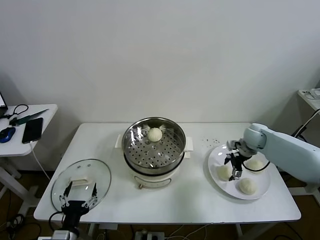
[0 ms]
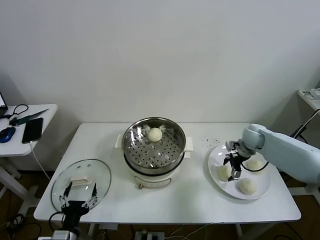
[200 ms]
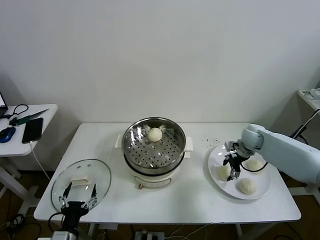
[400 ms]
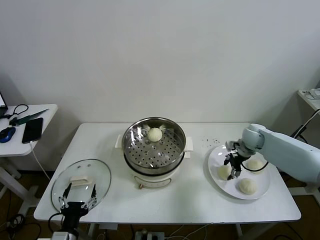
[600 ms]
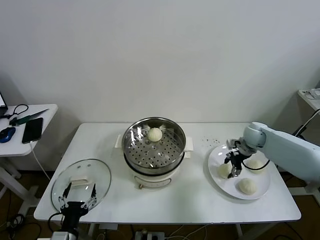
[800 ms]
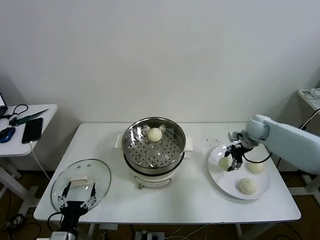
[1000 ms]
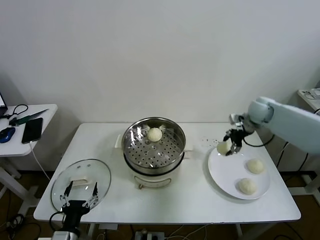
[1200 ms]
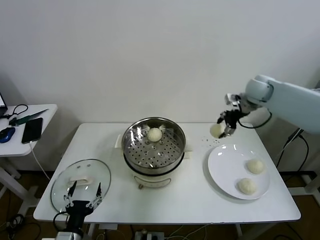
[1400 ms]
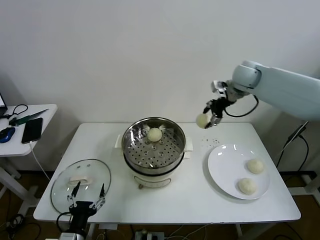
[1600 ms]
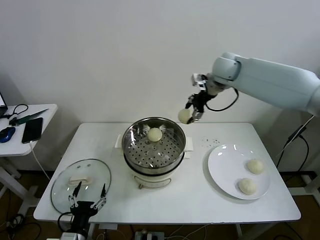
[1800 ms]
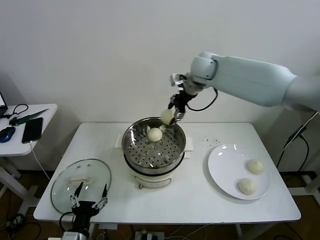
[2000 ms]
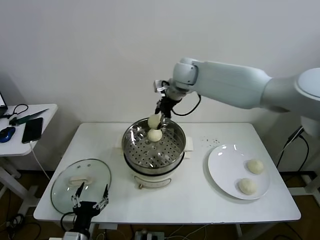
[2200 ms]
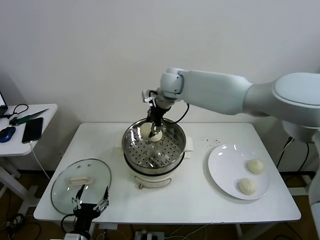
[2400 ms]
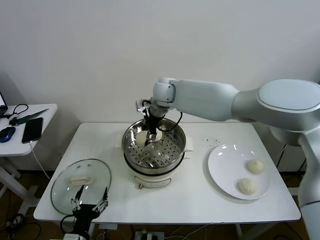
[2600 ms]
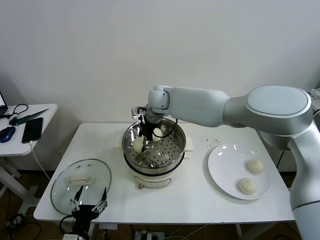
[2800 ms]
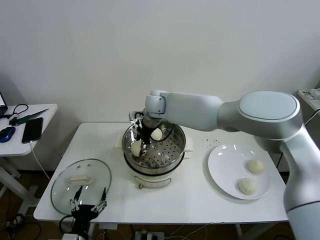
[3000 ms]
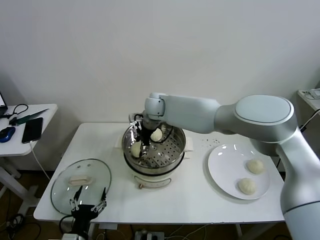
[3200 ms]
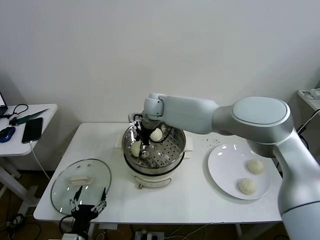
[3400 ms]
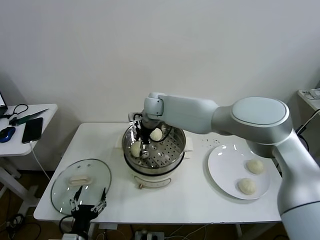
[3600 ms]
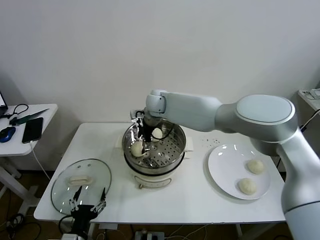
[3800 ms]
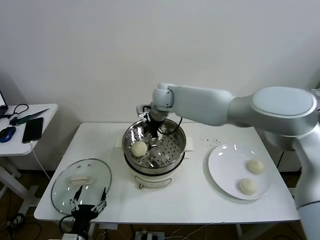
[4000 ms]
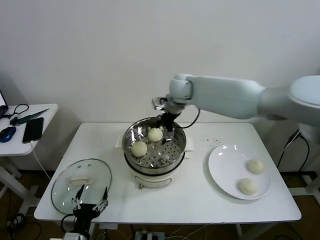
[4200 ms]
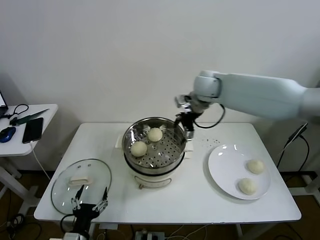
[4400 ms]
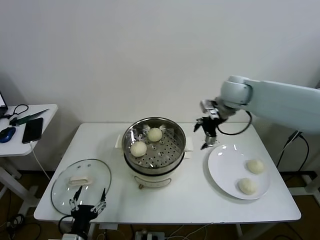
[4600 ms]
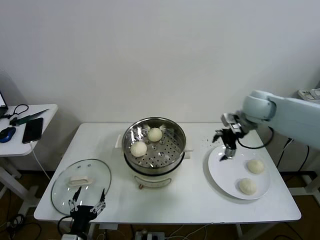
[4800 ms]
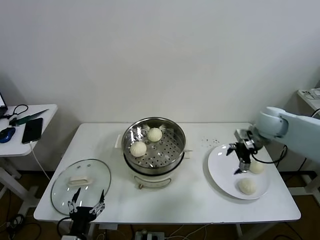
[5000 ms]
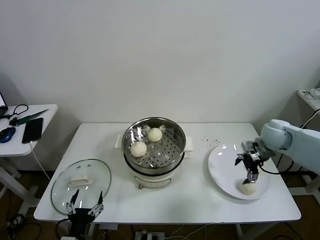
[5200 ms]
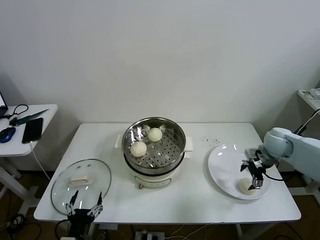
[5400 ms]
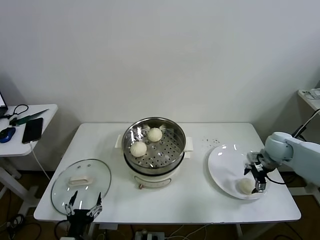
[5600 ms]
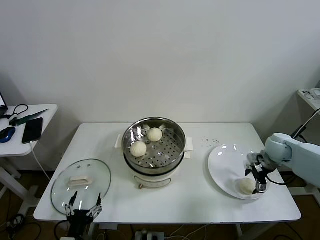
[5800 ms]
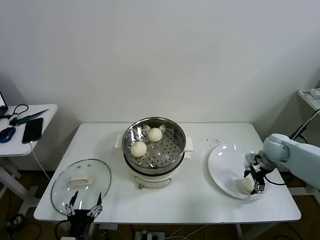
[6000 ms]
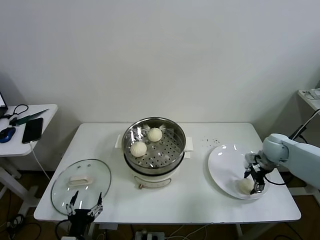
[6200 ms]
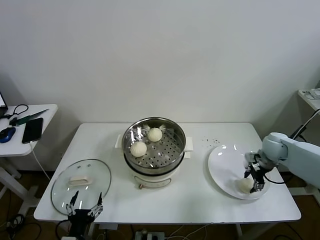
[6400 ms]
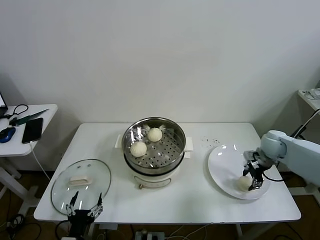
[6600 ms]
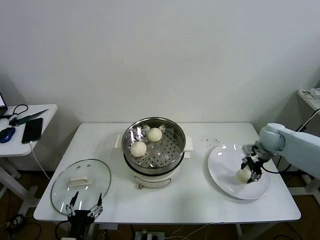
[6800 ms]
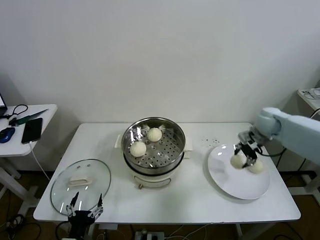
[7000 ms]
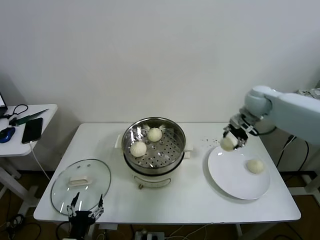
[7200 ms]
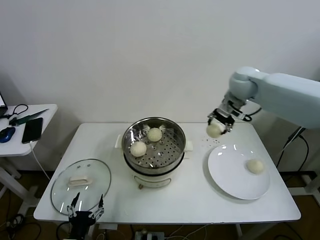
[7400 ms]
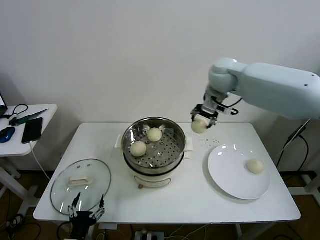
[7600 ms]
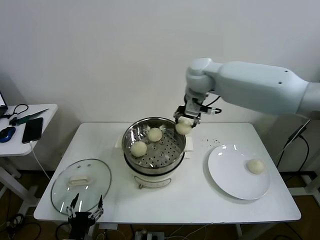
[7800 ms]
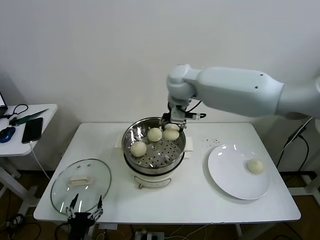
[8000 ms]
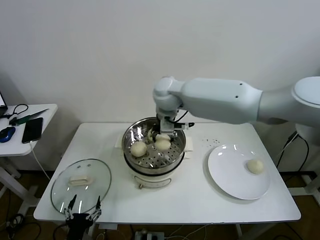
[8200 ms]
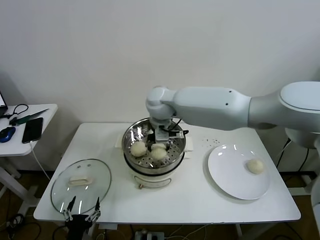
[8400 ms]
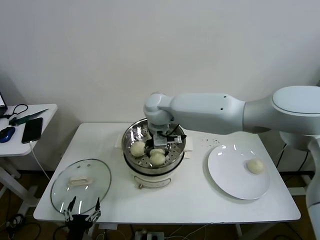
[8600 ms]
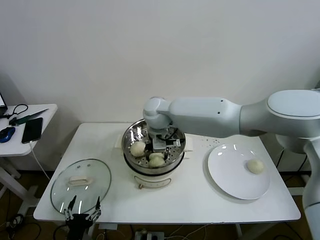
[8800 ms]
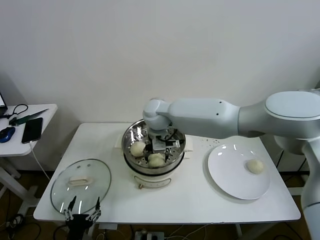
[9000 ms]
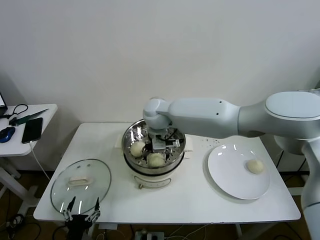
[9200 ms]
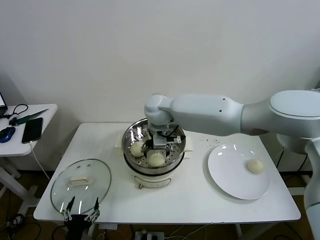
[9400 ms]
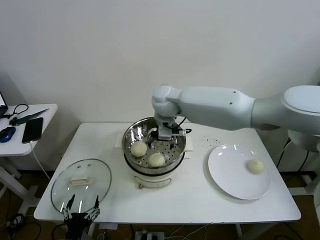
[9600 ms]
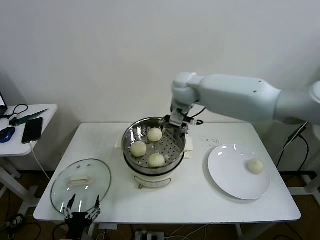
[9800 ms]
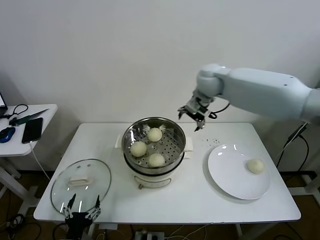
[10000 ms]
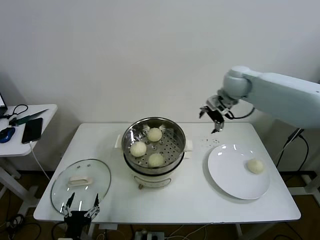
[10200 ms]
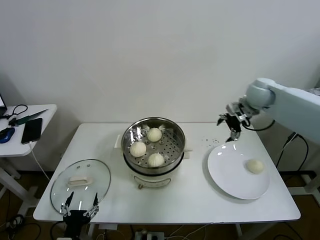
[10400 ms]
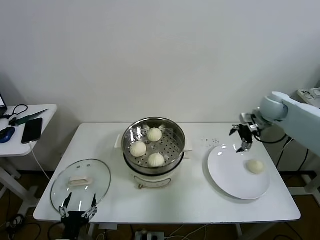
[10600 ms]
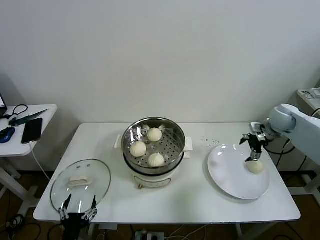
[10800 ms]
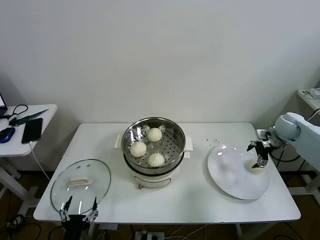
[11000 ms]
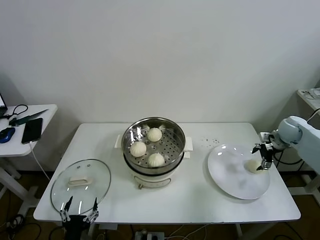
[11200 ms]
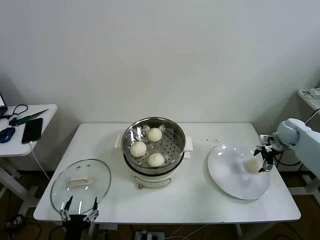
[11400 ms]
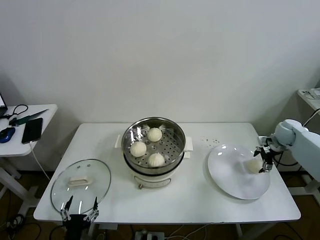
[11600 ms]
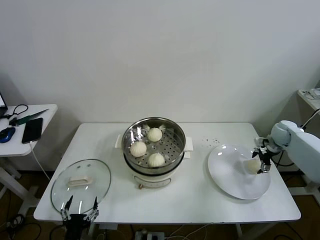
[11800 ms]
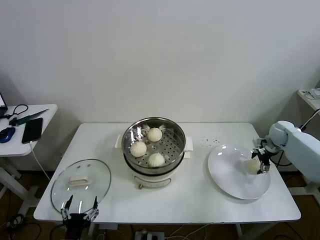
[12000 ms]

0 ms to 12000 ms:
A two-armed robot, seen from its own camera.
Task of the whole recording: take steamed baozi put them in steamer then cover it.
Step, 800 ms to 3800 ms: Place the baozi on the steamer with right gripper.
Step, 4000 ms to 6400 ms: Grasp the baozi in the plate with right gripper.
Step, 6600 ms to 9200 ms: Place the baozi on the steamer with right gripper.
0 ms to 1600 ms: The right gripper heads upward and to the left, covering approximately 25 cm, and closes.
1600 ms to 3000 ms: The right gripper travels to the left and downward by roughly 30 cm.
3000 ms to 4400 ms: The right gripper heads to the right and upward, covering about 20 cm, and opens.
4400 ms to 6000 ms: The right gripper shifts roughly 30 cm to the right and downward.
6000 ms to 7600 ms: The right gripper travels upward and to the left by about 35 cm, and closes up.
7600 ms to 9000 ms: The right gripper heads to the left and downward, covering some 20 cm, and opens up.
9000 ms to 10400 ms: The right gripper shifts about 35 cm to the right, and opens.
10400 ms to 12000 ms: The right gripper moves downward and to the right, approximately 25 cm.

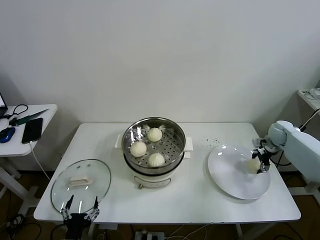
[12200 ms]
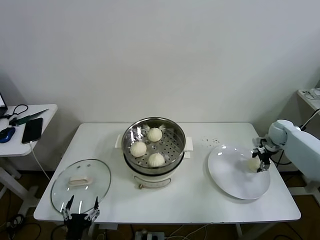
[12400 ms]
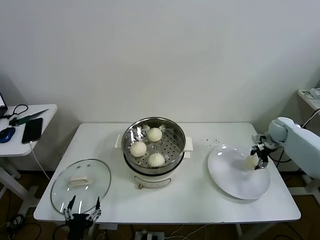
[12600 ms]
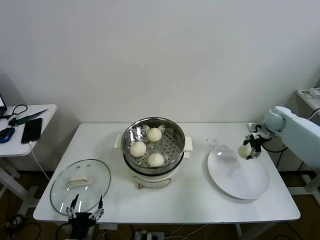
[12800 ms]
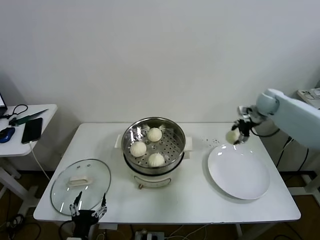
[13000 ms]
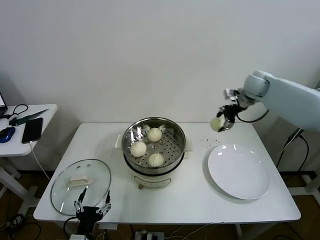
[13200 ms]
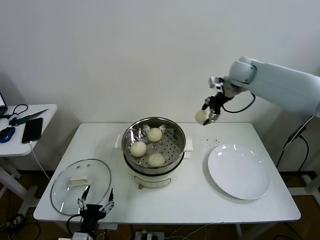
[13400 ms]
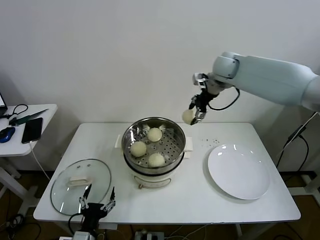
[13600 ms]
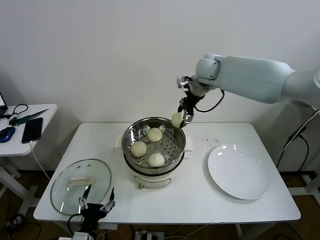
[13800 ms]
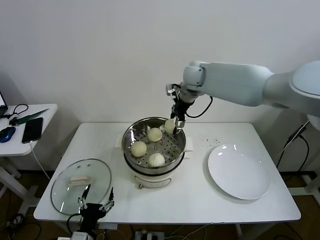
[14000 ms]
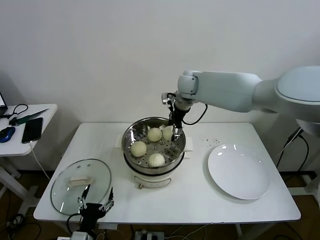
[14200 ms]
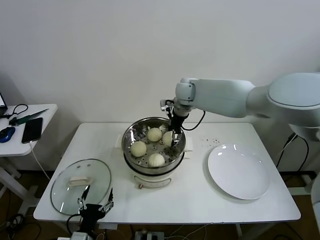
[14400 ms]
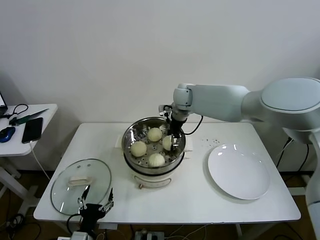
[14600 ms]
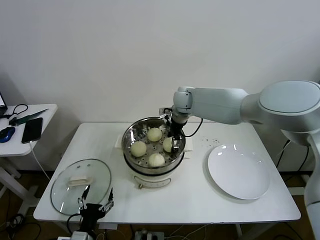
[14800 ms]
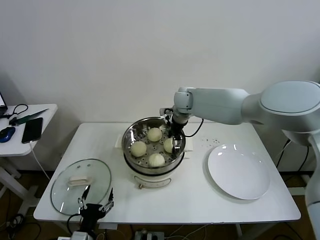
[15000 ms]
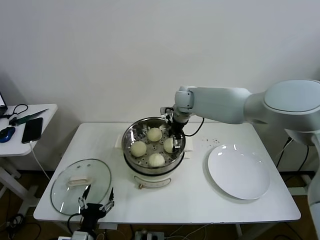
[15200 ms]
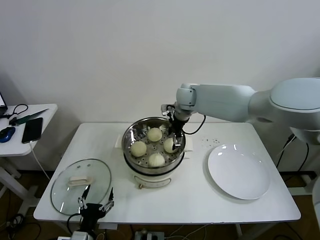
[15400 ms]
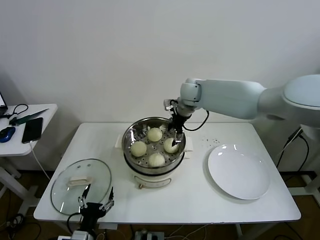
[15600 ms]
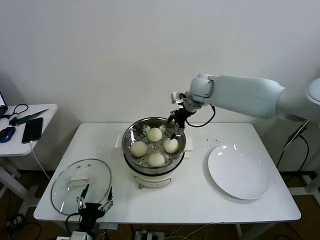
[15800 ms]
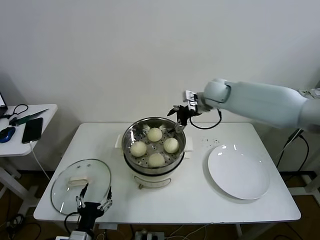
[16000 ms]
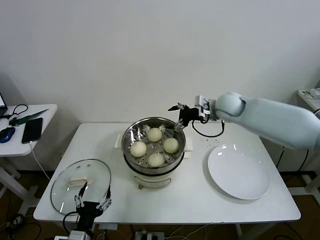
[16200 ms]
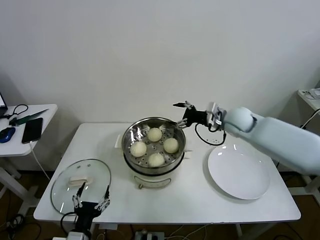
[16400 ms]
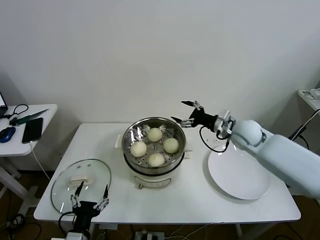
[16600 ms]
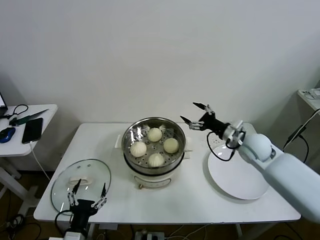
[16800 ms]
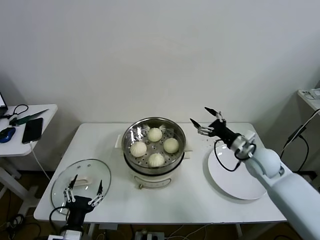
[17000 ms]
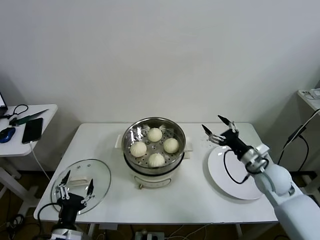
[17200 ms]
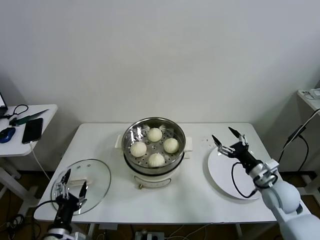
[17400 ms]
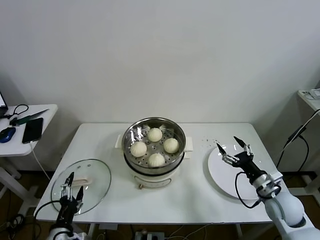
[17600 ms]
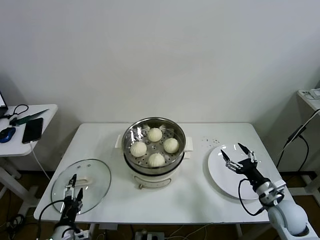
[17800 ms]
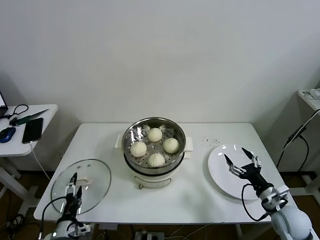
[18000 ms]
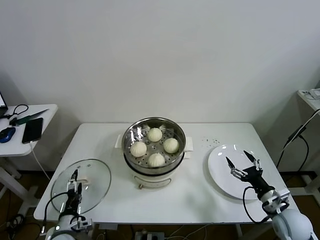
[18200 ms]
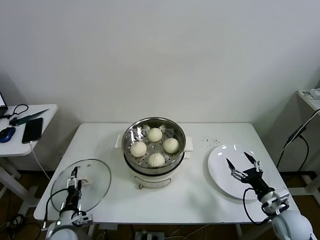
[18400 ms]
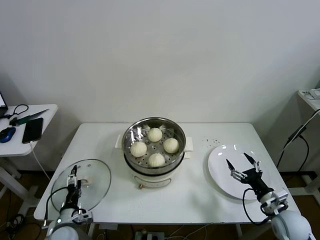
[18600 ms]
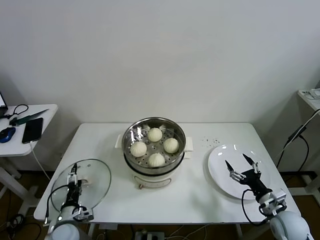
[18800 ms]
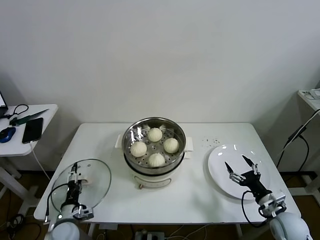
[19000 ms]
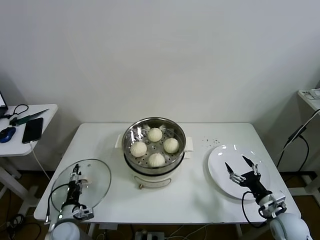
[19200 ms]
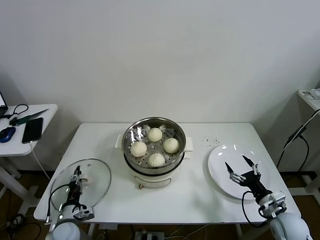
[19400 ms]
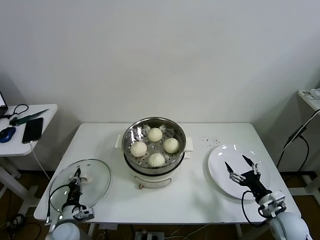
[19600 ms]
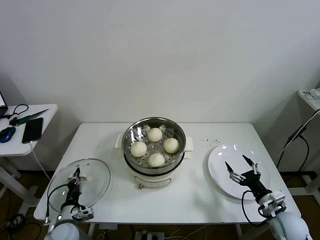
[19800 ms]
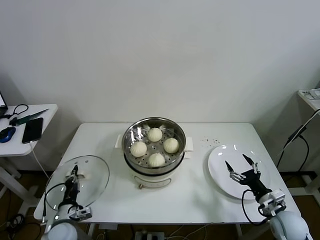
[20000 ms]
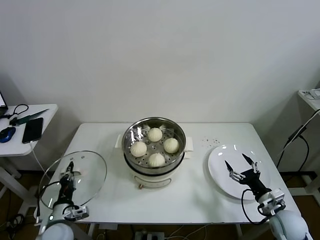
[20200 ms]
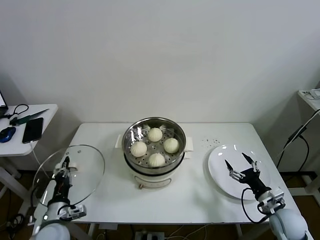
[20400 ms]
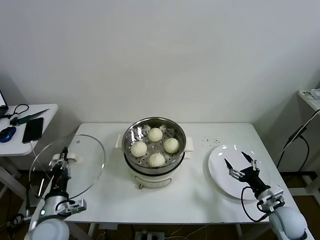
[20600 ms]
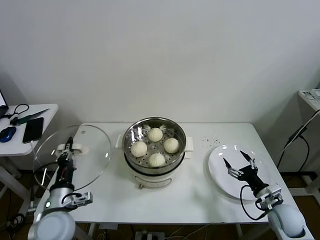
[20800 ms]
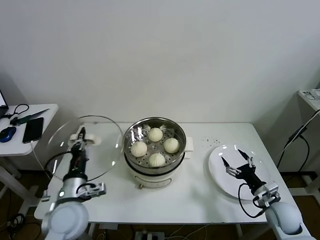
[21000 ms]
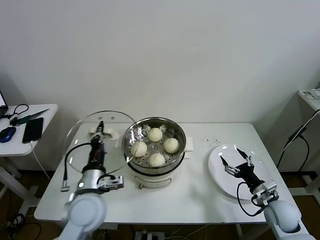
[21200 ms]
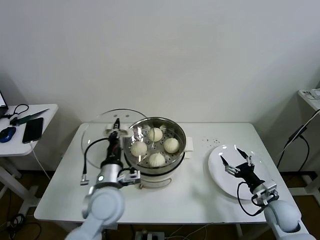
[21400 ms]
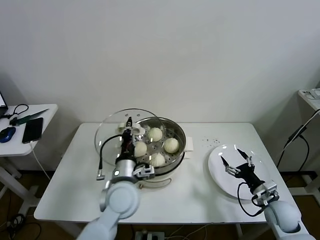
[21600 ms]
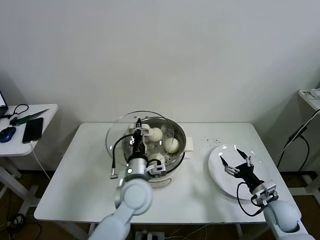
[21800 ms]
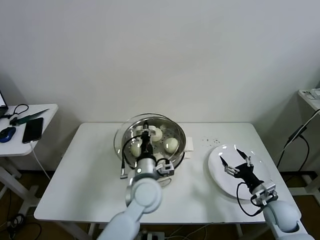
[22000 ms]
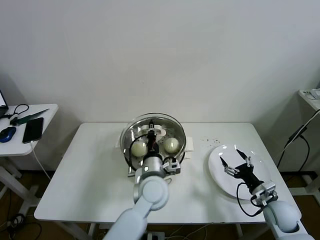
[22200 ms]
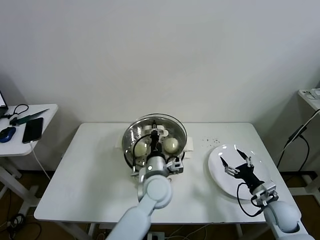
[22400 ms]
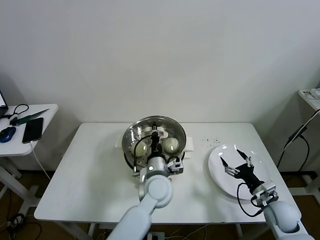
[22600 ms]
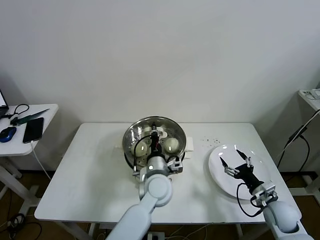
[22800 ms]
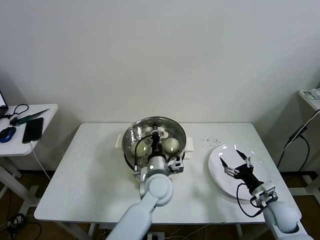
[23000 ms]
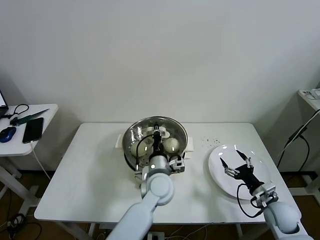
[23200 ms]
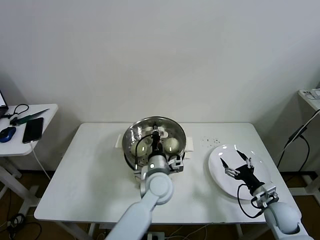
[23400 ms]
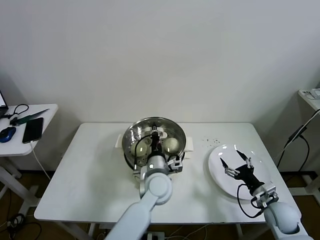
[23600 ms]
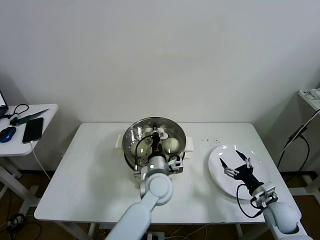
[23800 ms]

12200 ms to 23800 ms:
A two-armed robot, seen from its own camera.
Task of the whole recording: take steamed baozi put them in steamer then cover it.
Step, 12600 ms to 15200 ms: Place the baozi on the steamer with right gripper.
Step, 15600 ms to 19600 ms: Grasp the pot lid with left gripper.
12200 ms to 13600 ms: The right gripper goes some 35 cm to the left and upward.
13600 ms to 15000 ms: The right gripper heads downward and to the left, covering about 15 cm.
15000 ms to 16600 ms: The right gripper heads to the right and backward, covering roughly 25 cm.
16600 ms to 18000 ms: The left gripper moves to the left and downward, approximately 10 cm, while the right gripper moves backward, downward and to the right, about 30 cm.
18000 ms to 19400 ms: The left gripper goes about 5 cm forward, and closes its fingers.
19400 ms to 21000 ms: The left gripper travels upward and to the right by some 20 cm, and closes.
21000 ms to 22400 ms: The left gripper shifts approximately 25 cm to the right.
22400 ms to 23800 ms: The grippers stay close to where they were, moving slightly.
